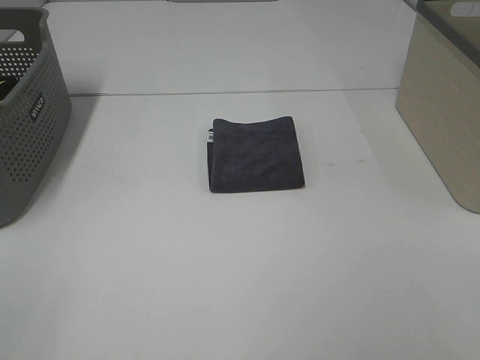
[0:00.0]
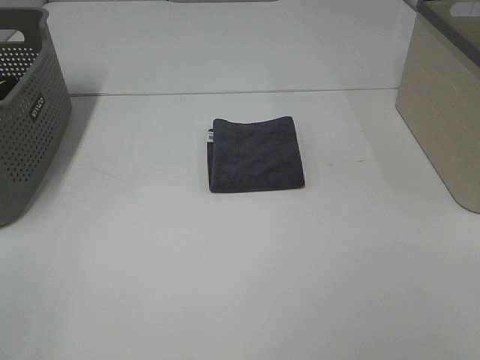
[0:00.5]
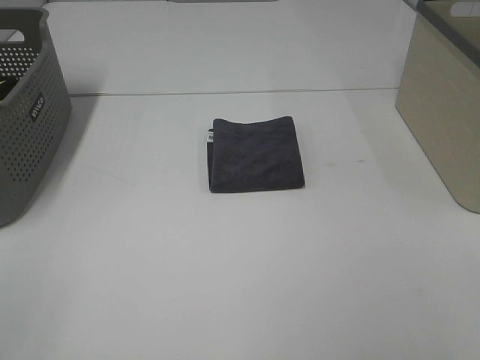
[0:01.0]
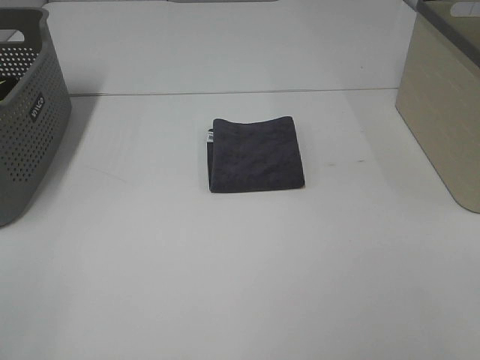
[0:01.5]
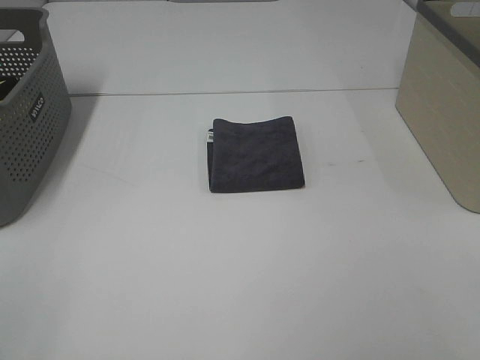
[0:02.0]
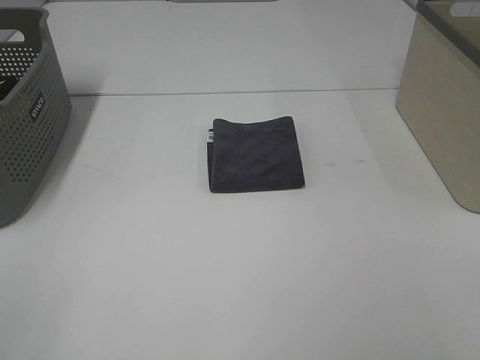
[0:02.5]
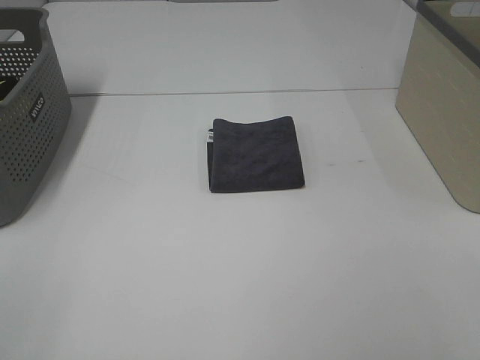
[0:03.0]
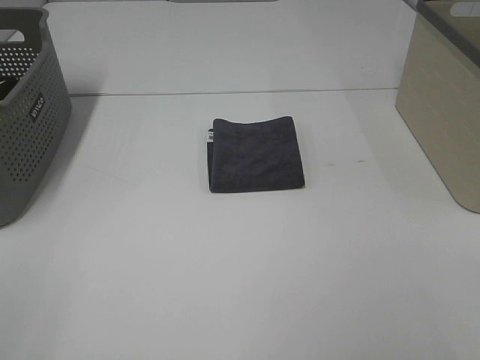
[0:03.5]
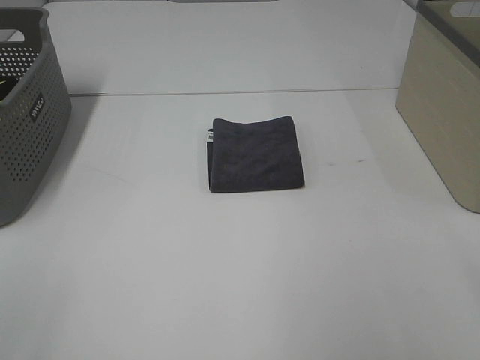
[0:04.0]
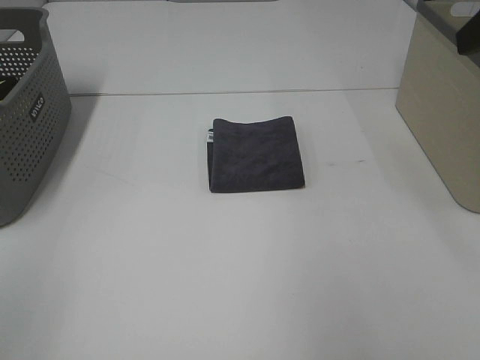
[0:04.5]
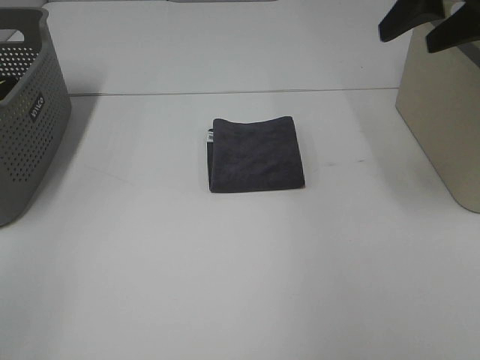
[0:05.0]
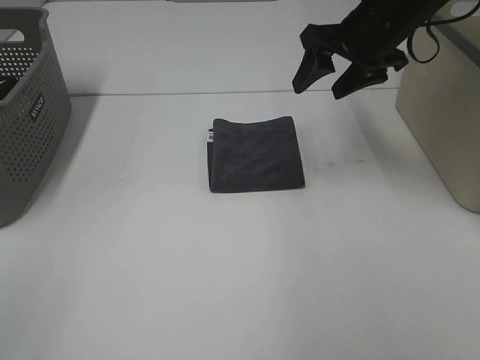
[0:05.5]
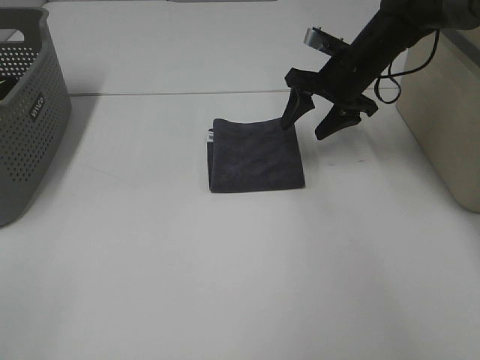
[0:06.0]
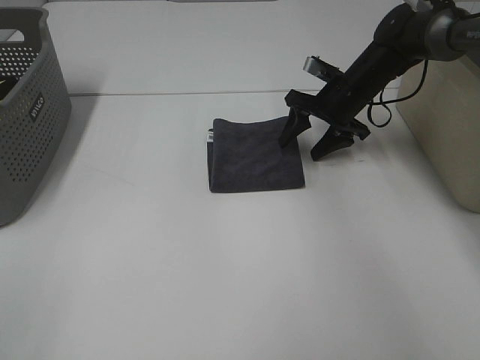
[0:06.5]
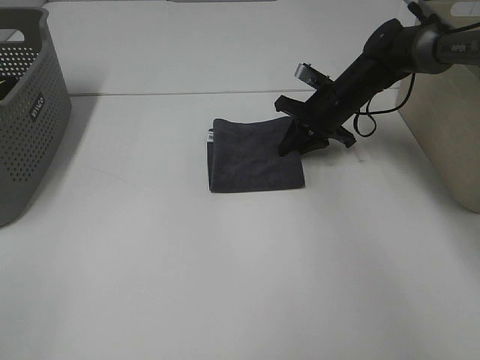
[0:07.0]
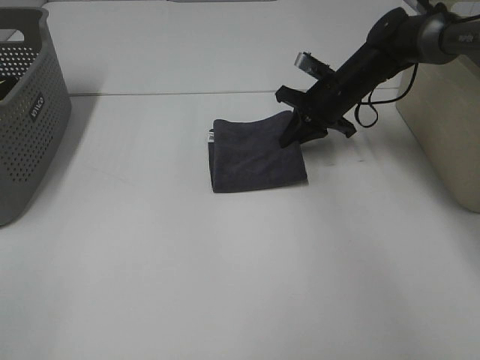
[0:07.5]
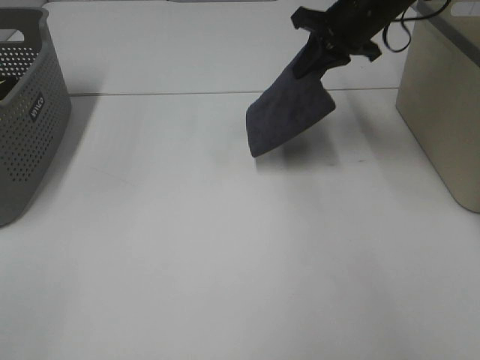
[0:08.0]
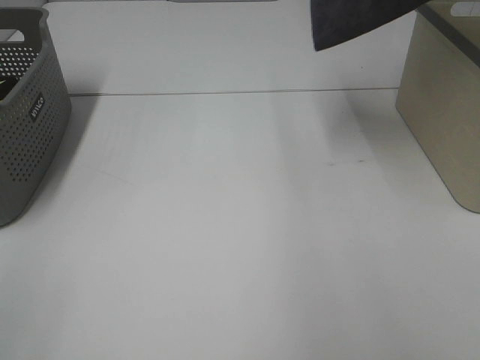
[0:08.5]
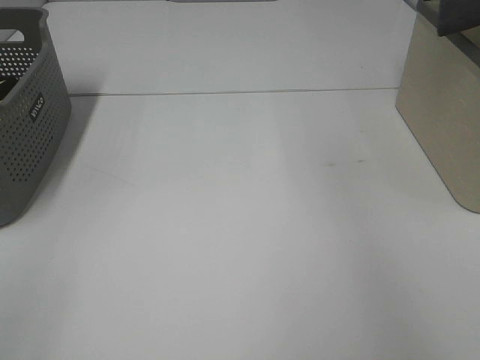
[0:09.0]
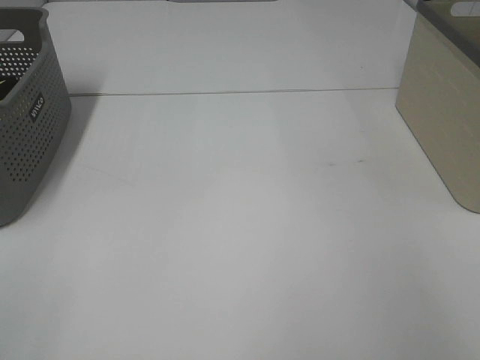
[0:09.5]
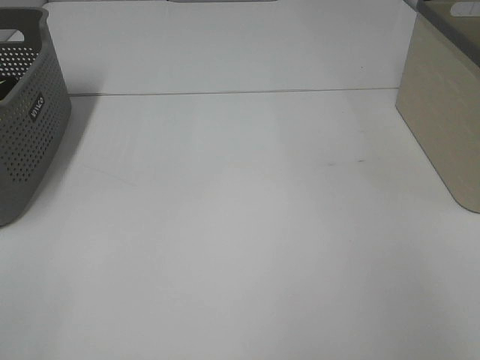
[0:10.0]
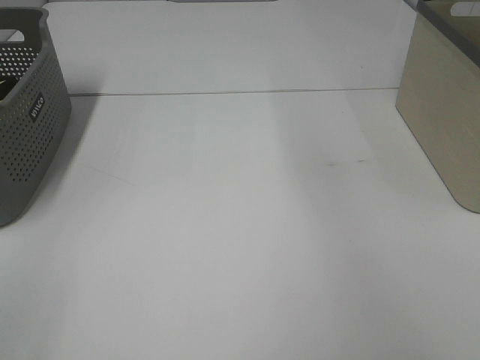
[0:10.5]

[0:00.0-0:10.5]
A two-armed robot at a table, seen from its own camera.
Step, 0:00.0 to 0:07.0: Right hand: grab the folded grey towel.
Step, 0:07.5 to 0:09.5: Right hand: place the grey towel in right basket.
0:00.0 to 0:02.0: The two grippers keep their place.
0:04.0 to 0:06.5: The right gripper shifts some 50 cm forward and downward.
0:06.5 to 0:08.5: The right gripper travels upward by approximately 30 cm, and closes.
0:08.5 to 0:10.5: The right gripper goes to the right and returns, approximately 20 cm each way, and opens up.

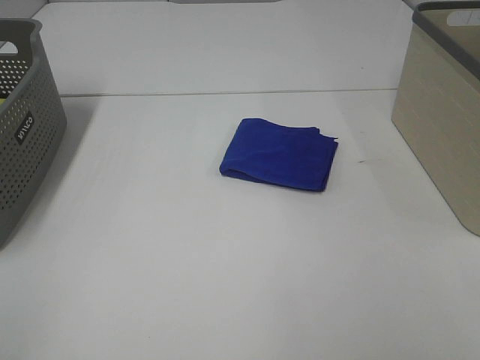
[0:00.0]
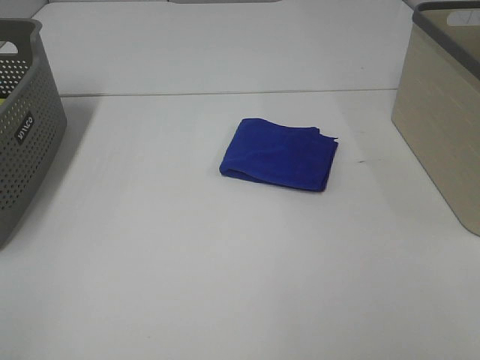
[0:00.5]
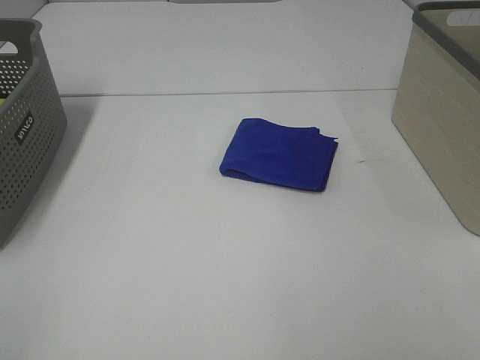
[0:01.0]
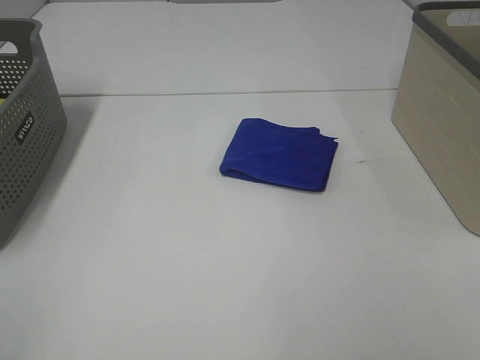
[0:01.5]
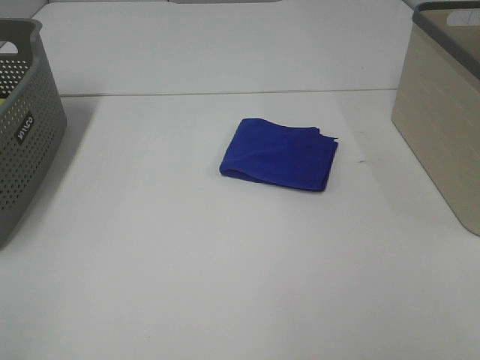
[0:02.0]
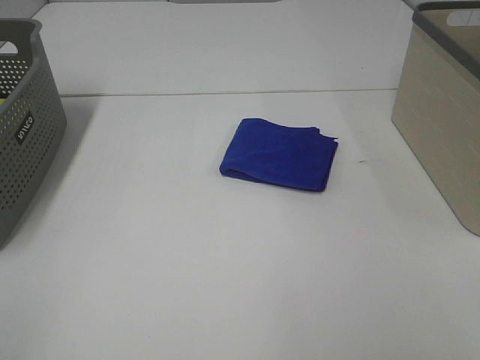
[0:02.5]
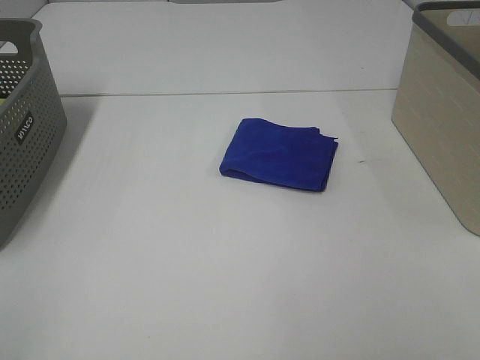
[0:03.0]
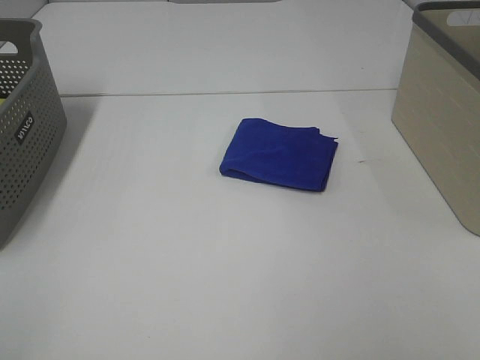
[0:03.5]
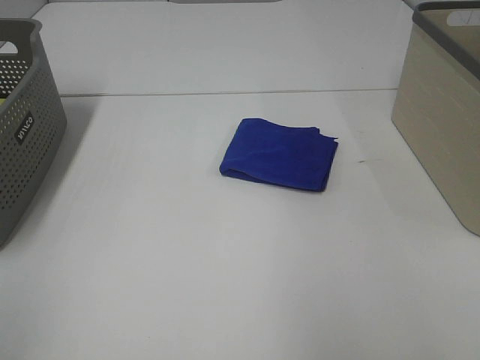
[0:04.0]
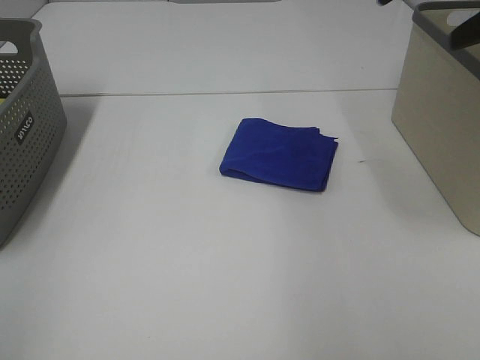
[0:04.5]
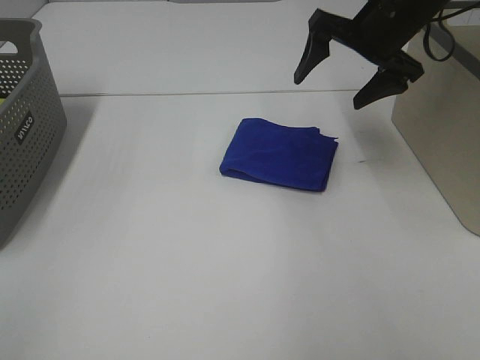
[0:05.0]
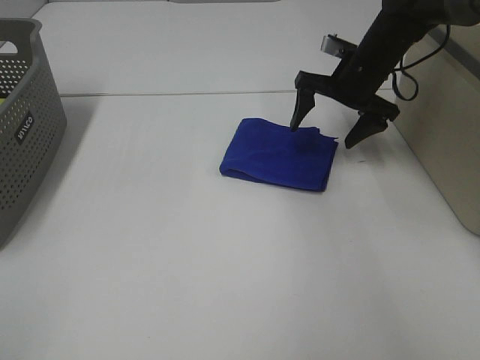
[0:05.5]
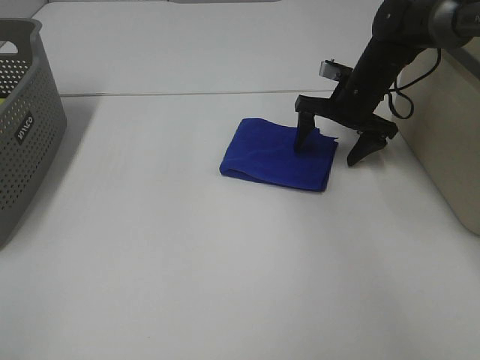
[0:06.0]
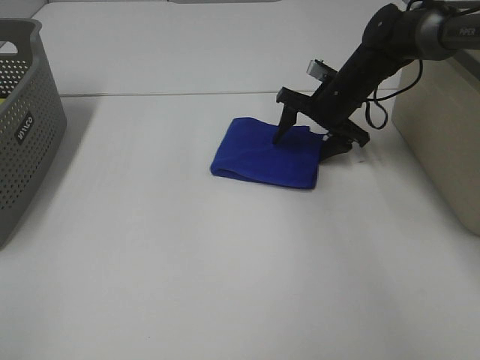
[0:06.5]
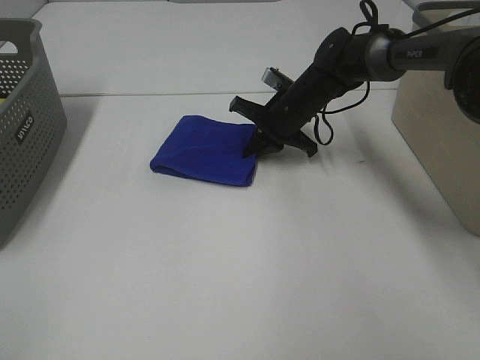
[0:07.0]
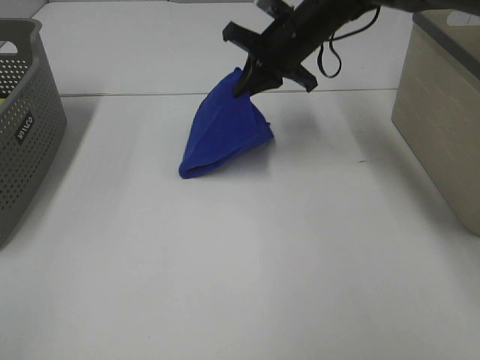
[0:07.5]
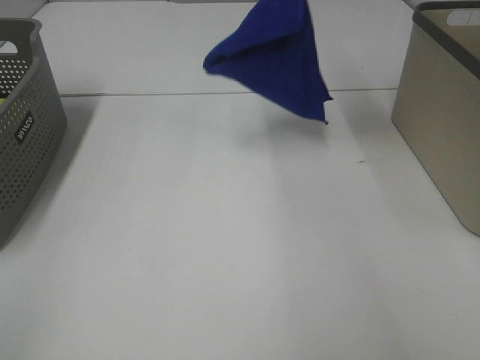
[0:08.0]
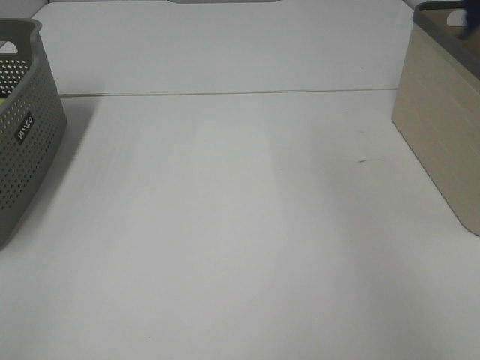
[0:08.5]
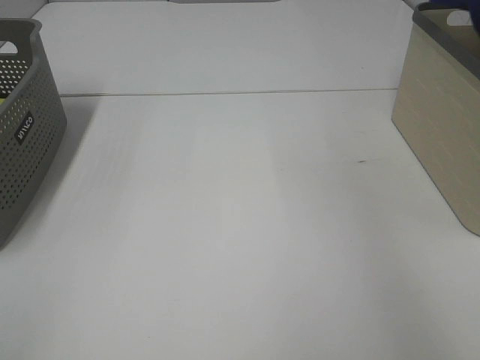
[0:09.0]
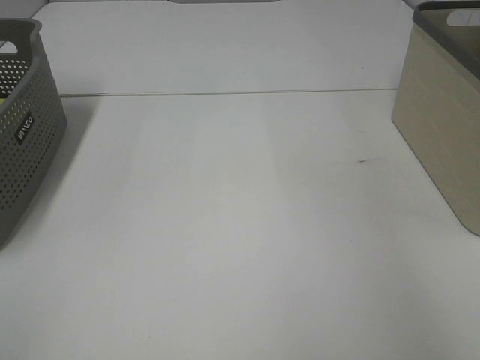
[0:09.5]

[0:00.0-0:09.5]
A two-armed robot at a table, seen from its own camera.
Step, 0:00.0 to 0:06.5: Right hand: grab the folded blue towel.
0:00.0 to 0:02.0: Neither gripper changes place.
0:04.0 to 0:05.5: The right gripper heads forward and downward, covering some 40 cm.
0:05.5 to 0:07.5: The right gripper heads to the left and upward, covering approximately 10 cm, and closes up.
0:07.5 to 0:09.5: The right gripper travels to the right and upward by some 35 cm, and opens its fingers.

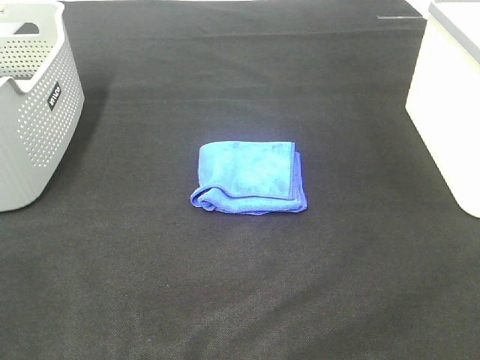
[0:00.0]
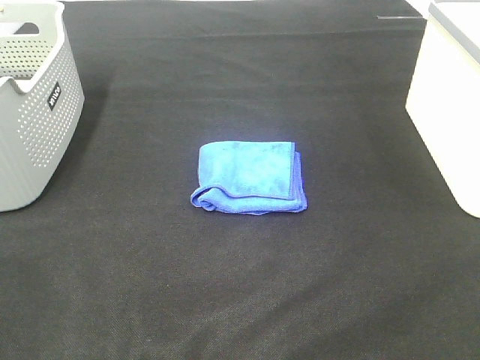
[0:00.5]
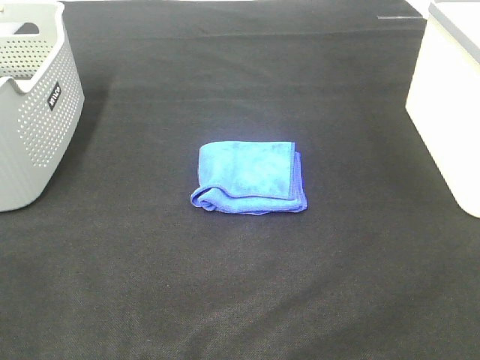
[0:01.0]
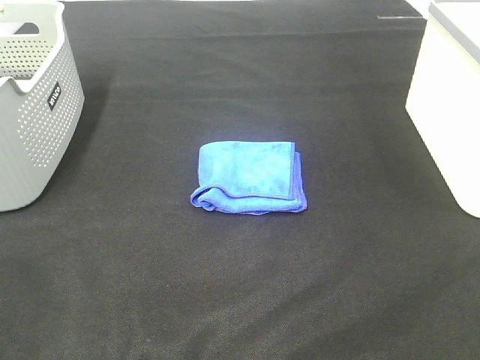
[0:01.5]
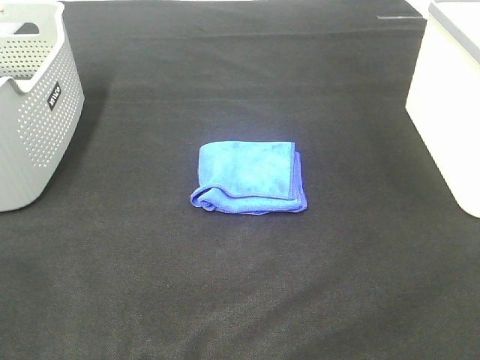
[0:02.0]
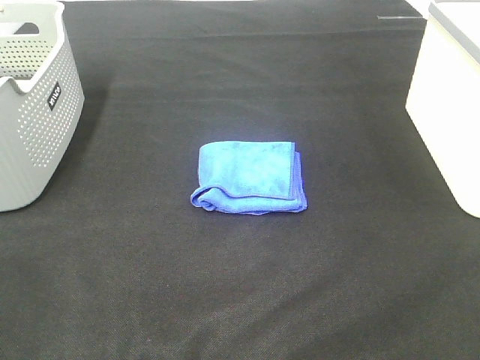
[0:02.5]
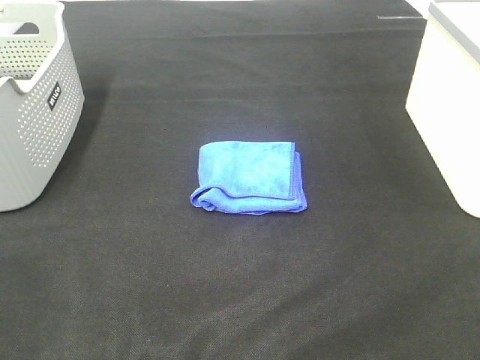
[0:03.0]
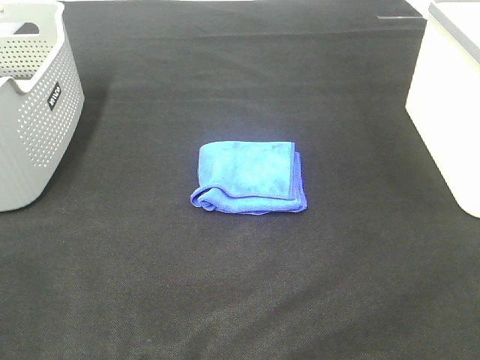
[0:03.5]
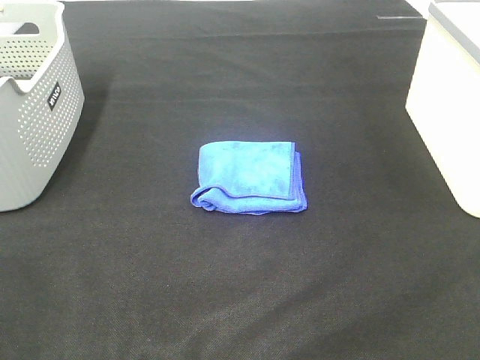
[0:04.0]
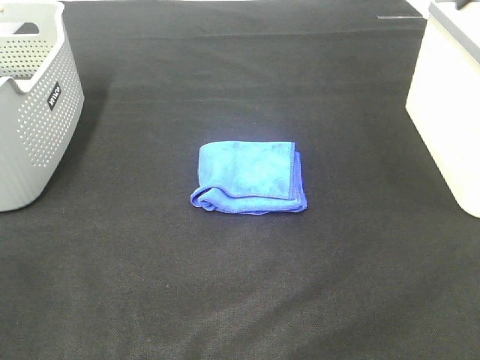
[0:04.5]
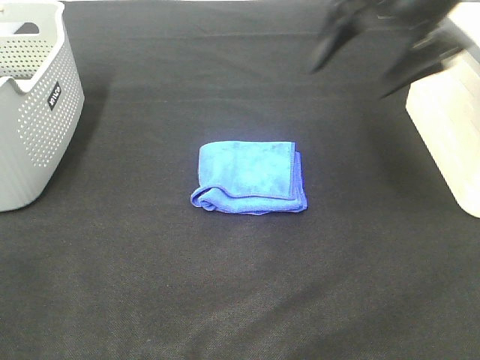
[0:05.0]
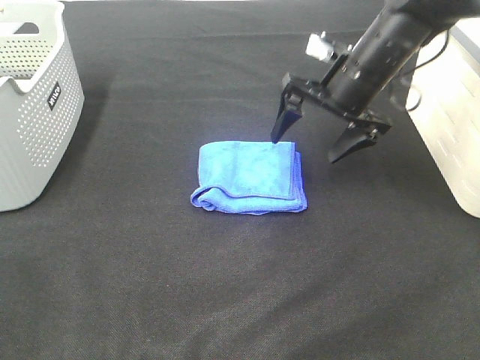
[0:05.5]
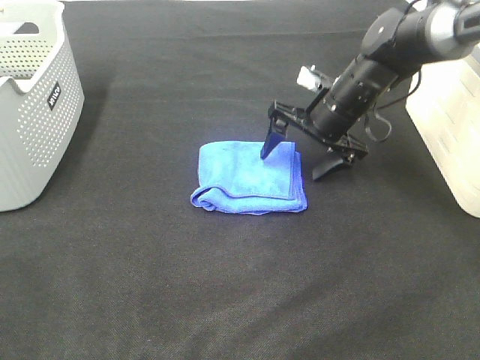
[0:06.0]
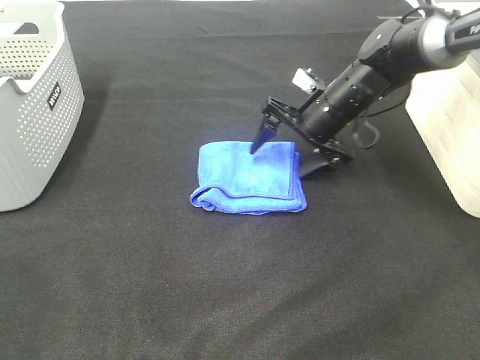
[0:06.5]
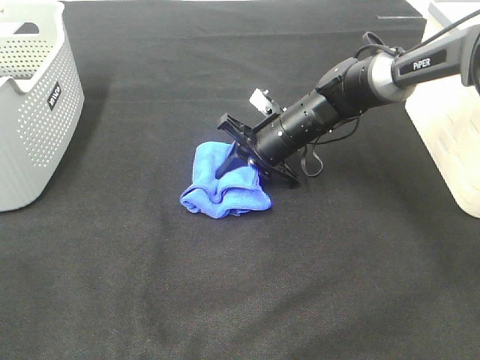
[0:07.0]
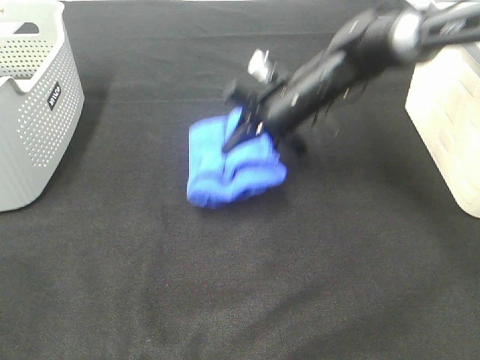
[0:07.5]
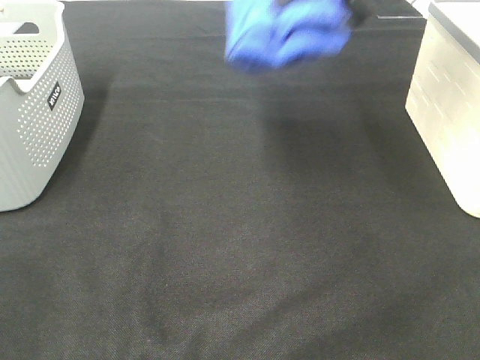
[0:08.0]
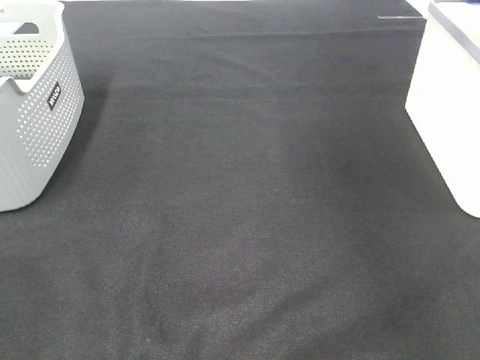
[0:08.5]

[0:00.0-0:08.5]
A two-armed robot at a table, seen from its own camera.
Step, 0:00.0 to 0:07.0: Right hand: grab the folded blue towel.
0:00.0 to 0:02.0: Neither gripper changes place.
0:04.0 to 0:06.5: The right gripper heads forward, downward and to the left, covering some 40 cm.
0:06.5 to 0:08.5: The right gripper is displaced upward and to the right by about 40 cm, and closes its fingers.
